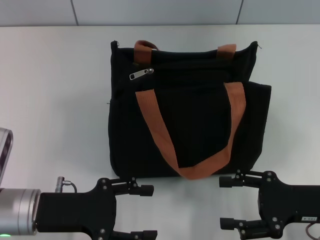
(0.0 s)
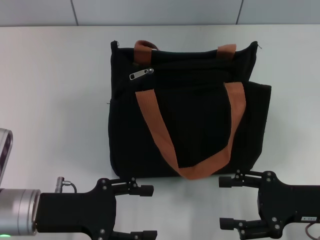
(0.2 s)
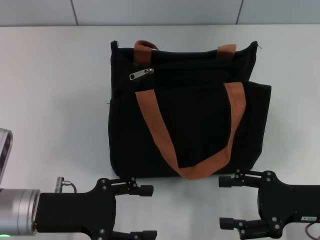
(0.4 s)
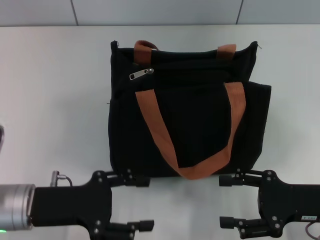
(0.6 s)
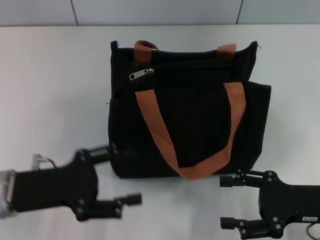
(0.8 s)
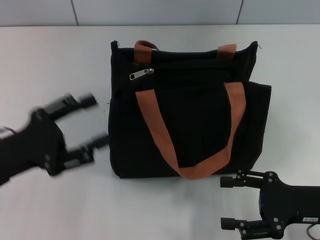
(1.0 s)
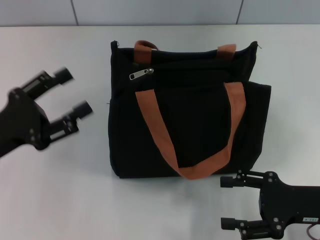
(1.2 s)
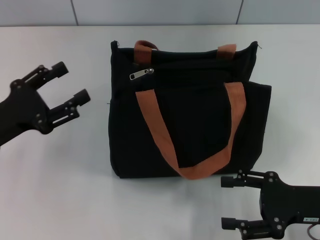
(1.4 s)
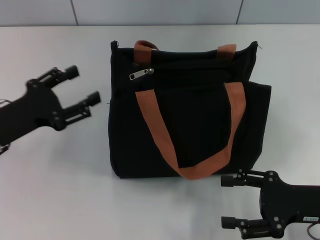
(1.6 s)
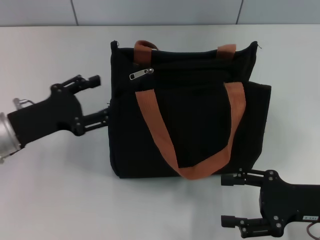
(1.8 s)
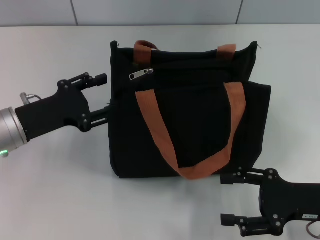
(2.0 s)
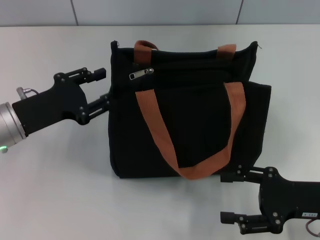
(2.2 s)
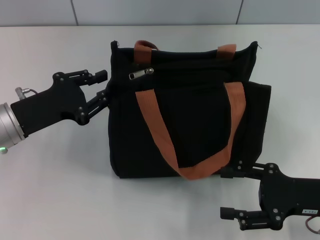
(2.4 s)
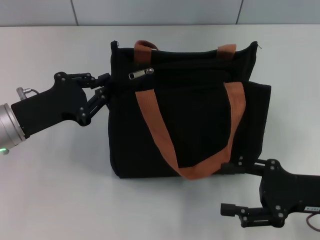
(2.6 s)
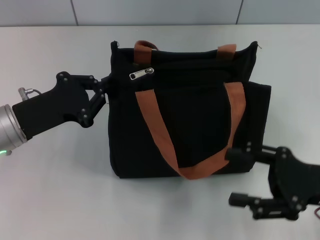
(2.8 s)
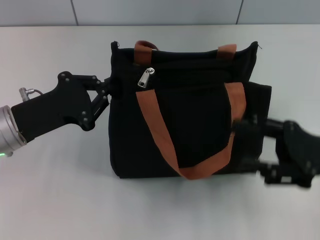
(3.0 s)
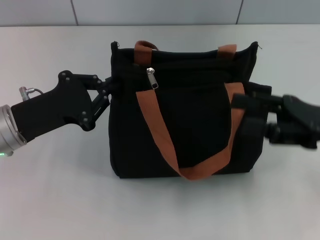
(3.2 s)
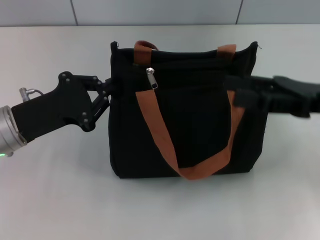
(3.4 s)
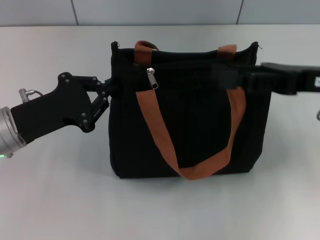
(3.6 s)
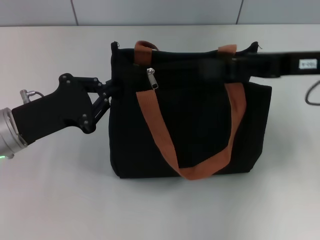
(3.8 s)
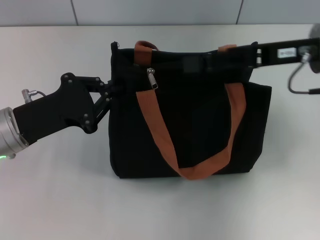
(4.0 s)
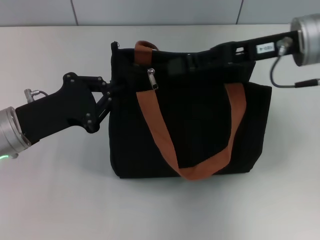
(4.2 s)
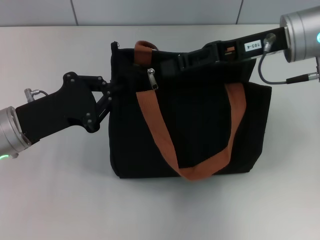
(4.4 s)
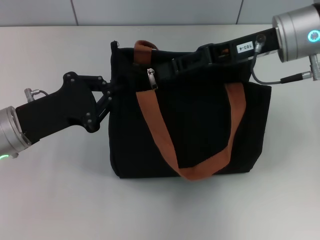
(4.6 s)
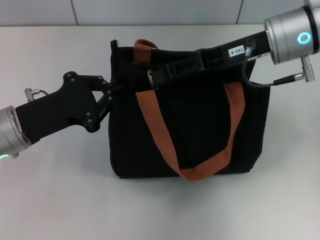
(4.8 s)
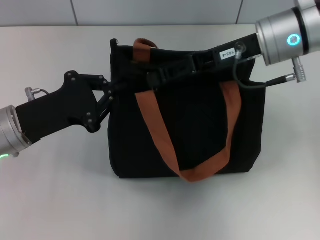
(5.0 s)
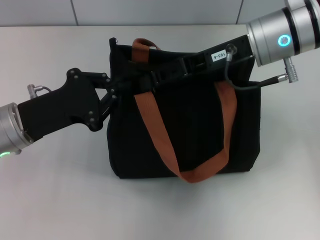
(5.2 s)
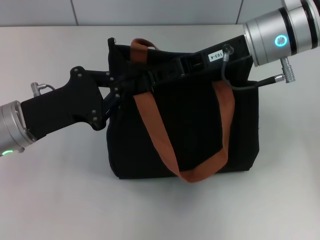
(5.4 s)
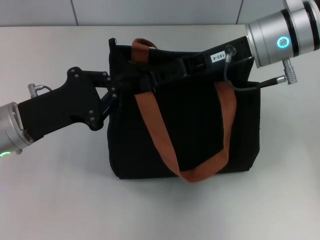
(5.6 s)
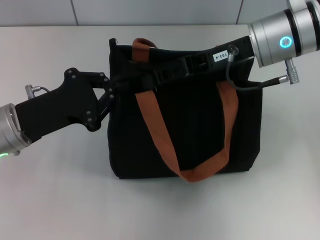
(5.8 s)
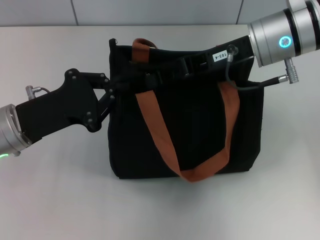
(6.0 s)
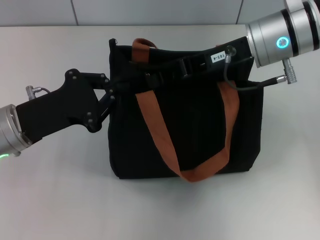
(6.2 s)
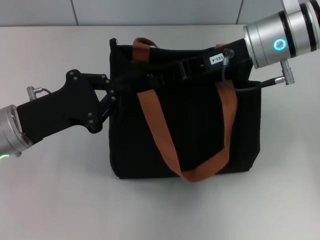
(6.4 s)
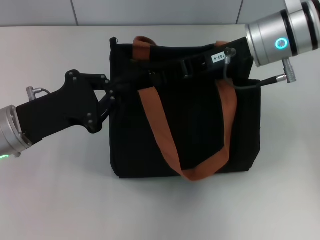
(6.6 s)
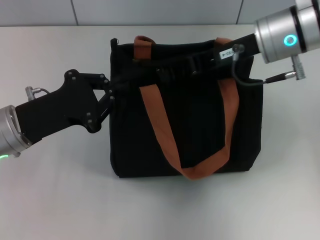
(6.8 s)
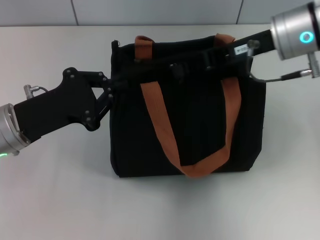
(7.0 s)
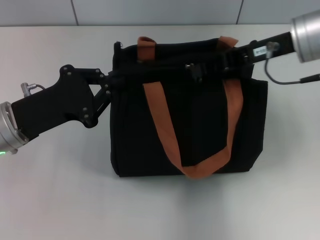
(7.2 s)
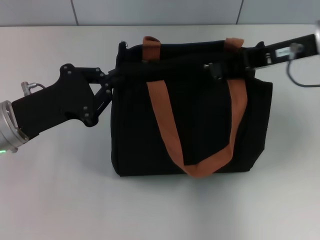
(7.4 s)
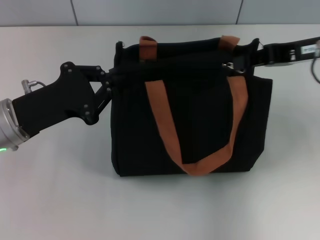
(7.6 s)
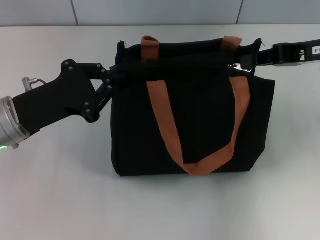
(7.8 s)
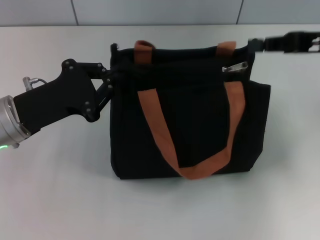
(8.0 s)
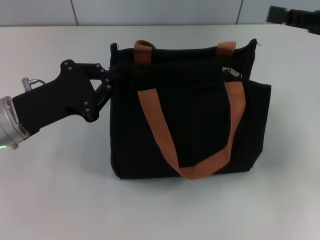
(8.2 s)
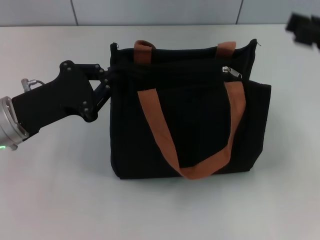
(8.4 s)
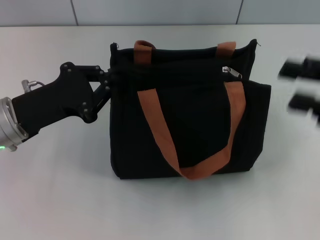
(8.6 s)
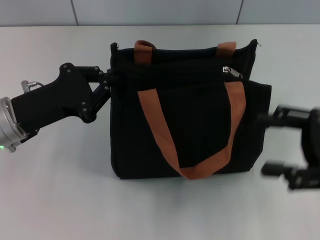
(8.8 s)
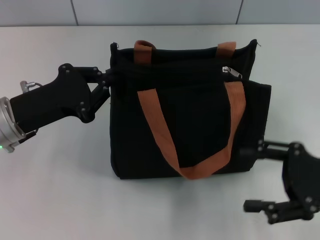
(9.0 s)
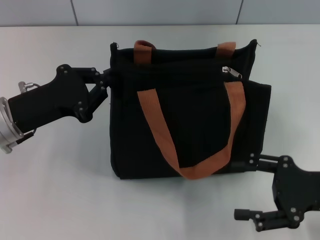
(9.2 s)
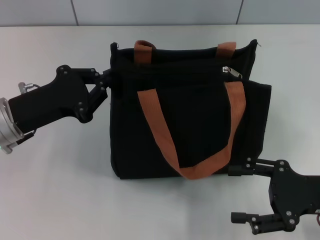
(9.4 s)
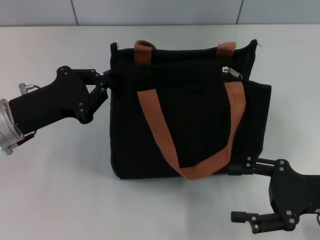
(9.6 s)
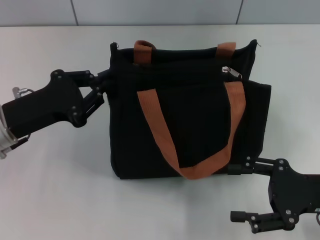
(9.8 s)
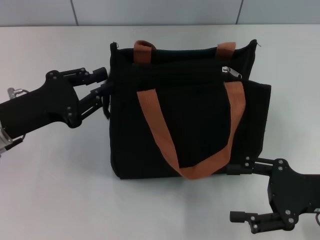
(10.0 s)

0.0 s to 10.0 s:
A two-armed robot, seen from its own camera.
Step, 0.0 to 7.8 s: Pull up the zipper with your right hand.
0.0 to 1.4 s: The left gripper is displaced to the left by some 5 cm.
1.4 to 2.8 s: The left gripper changes place by roughly 5 cm, and closes its fingers.
2.8 to 4.2 s: The right gripper travels forward, upward and to the left by roughly 20 cm.
4.2 to 5.8 s: The right gripper closes up.
5.8 to 7.2 s: The right gripper travels to the right by roughly 5 cm, and closes up.
7.2 to 8.6 s: The right gripper heads backward and to the right, covering roughly 15 cm, and opens.
8.6 to 10.0 s: The right gripper heads downward, covering about 10 cm, and opens up.

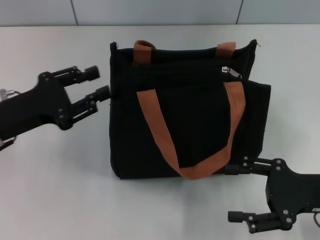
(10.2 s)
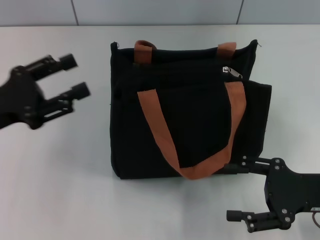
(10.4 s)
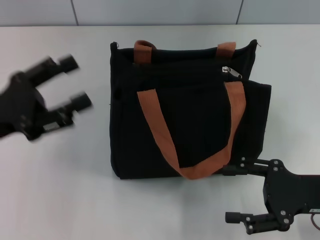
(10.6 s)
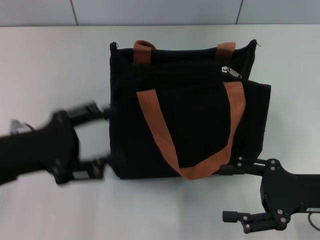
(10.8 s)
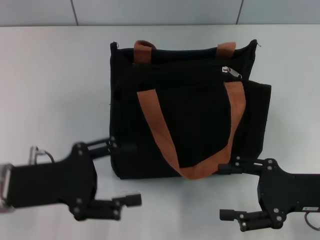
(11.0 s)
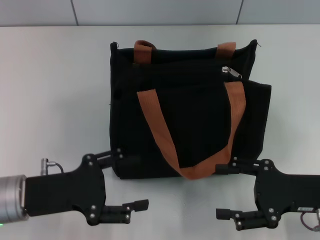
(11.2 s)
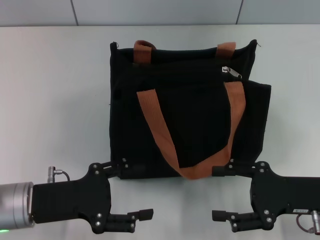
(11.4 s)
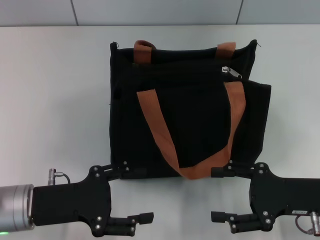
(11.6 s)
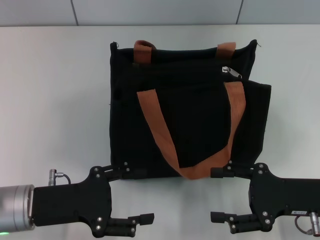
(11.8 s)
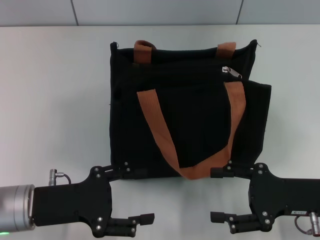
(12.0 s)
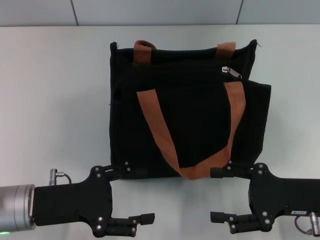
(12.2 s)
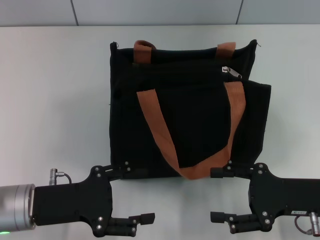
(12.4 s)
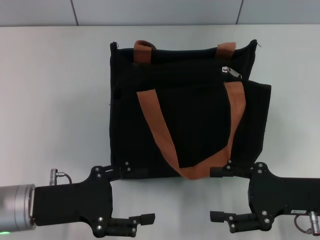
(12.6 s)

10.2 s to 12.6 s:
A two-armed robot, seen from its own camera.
10.2 to 11.4 s: The left gripper heads backward, covering about 5 cm, and opens.
11.4 to 12.6 s: Both grippers stay about where they are.

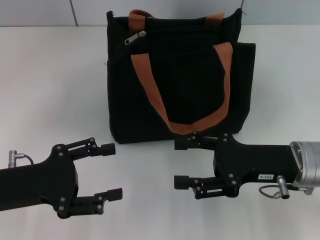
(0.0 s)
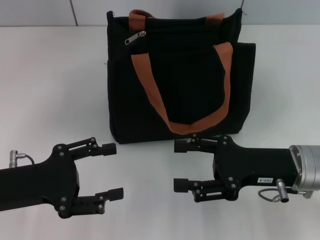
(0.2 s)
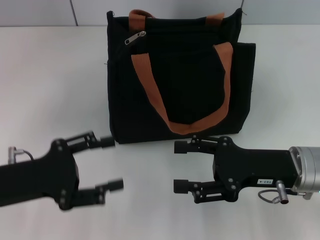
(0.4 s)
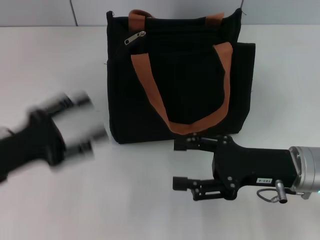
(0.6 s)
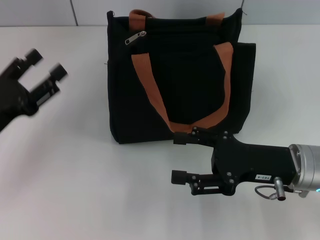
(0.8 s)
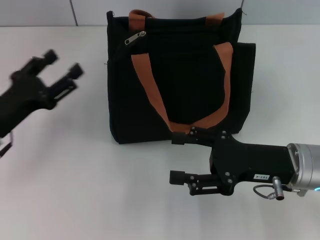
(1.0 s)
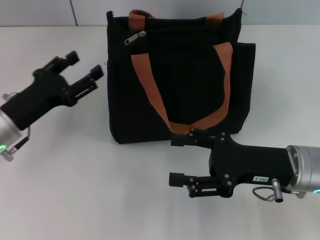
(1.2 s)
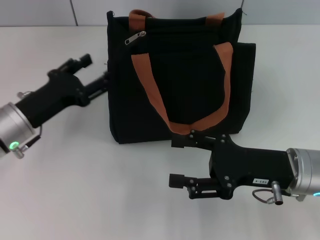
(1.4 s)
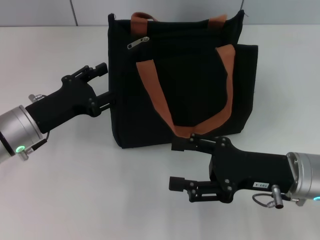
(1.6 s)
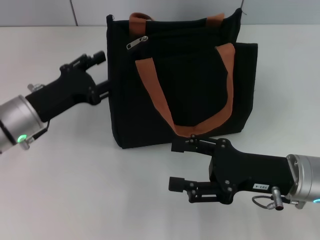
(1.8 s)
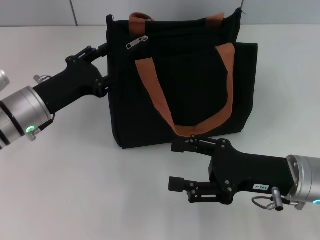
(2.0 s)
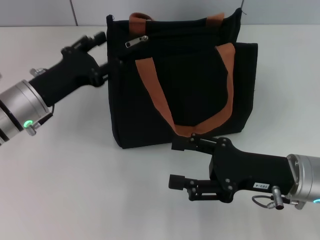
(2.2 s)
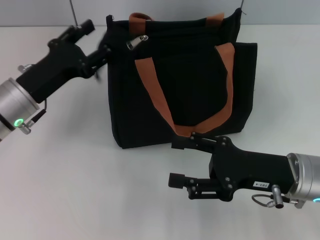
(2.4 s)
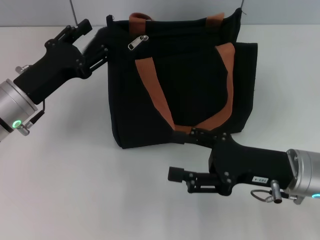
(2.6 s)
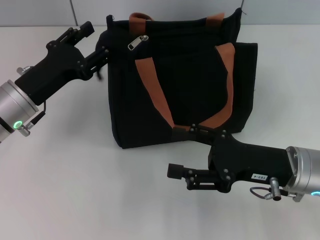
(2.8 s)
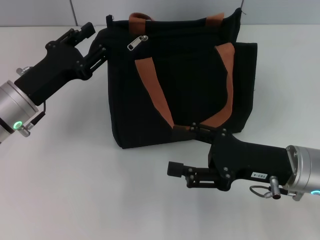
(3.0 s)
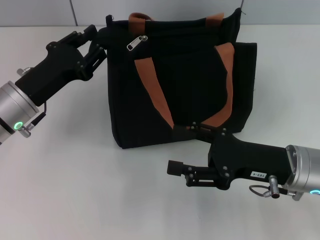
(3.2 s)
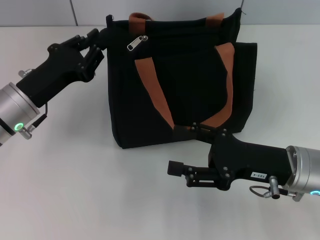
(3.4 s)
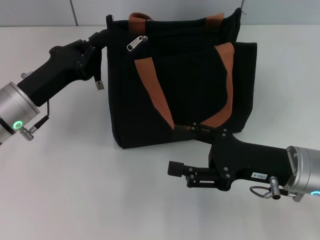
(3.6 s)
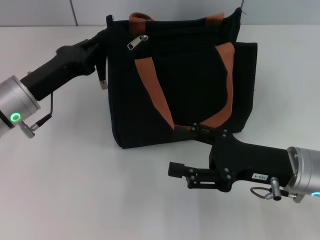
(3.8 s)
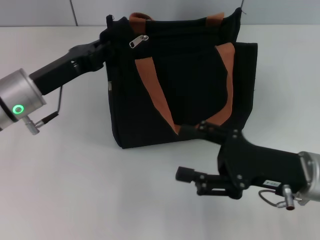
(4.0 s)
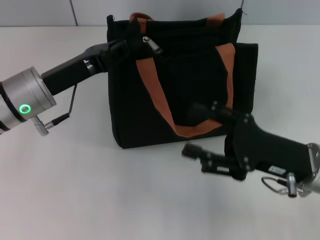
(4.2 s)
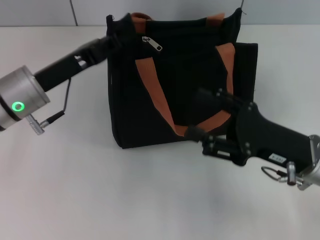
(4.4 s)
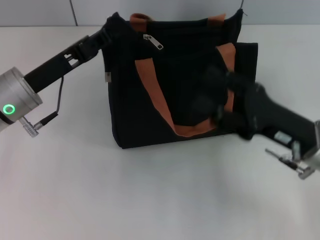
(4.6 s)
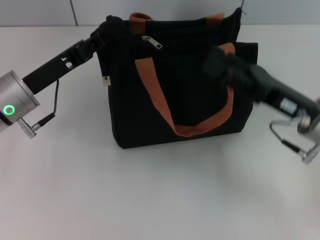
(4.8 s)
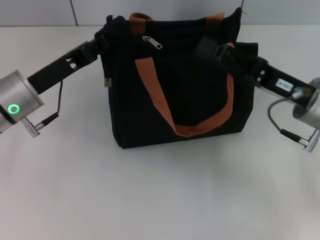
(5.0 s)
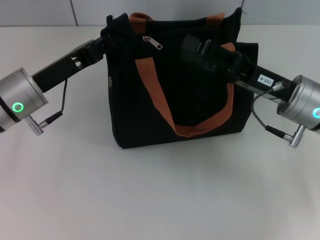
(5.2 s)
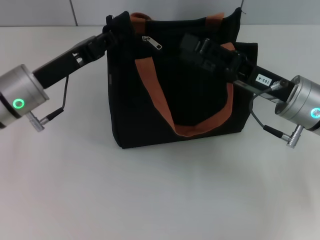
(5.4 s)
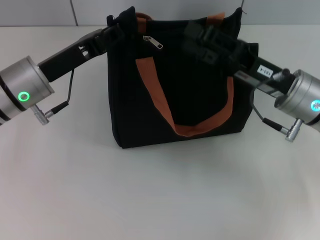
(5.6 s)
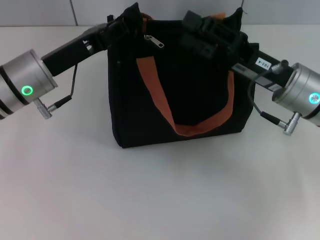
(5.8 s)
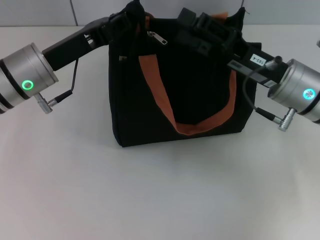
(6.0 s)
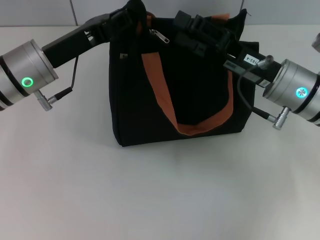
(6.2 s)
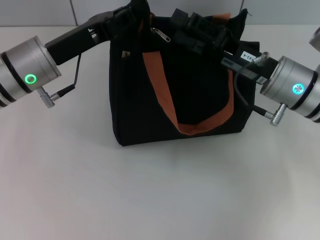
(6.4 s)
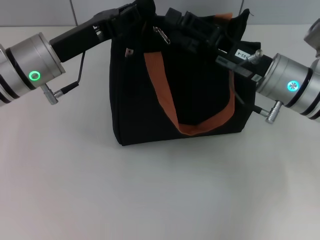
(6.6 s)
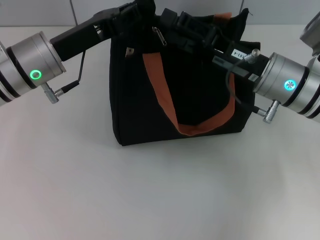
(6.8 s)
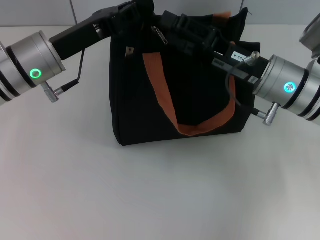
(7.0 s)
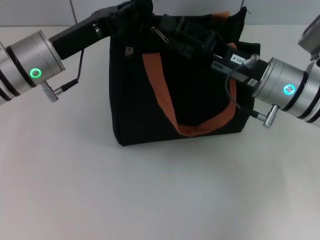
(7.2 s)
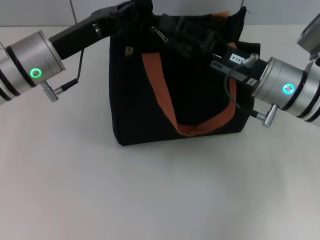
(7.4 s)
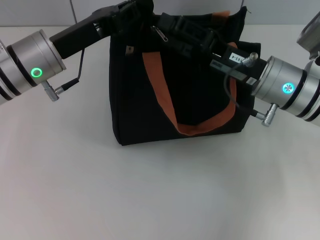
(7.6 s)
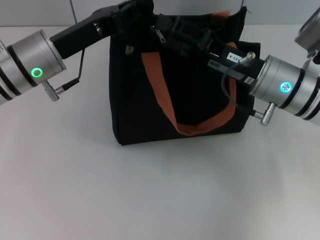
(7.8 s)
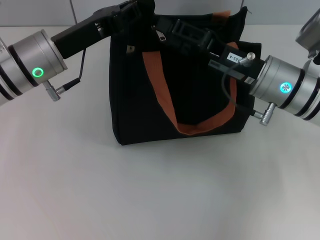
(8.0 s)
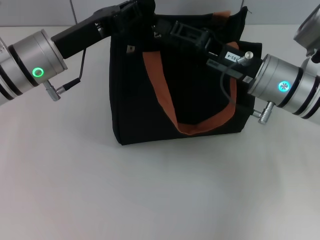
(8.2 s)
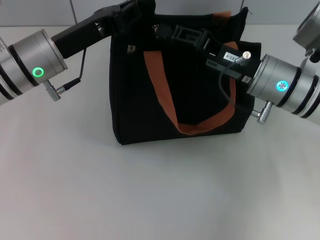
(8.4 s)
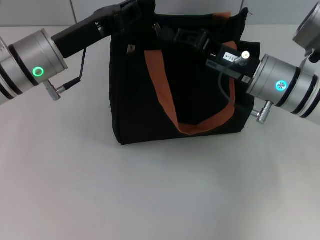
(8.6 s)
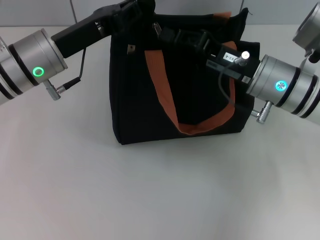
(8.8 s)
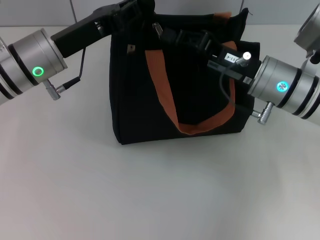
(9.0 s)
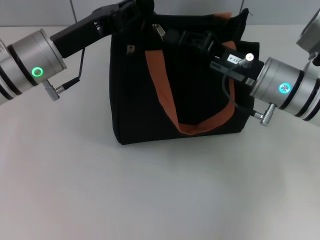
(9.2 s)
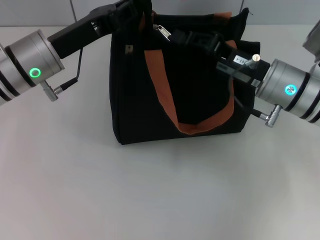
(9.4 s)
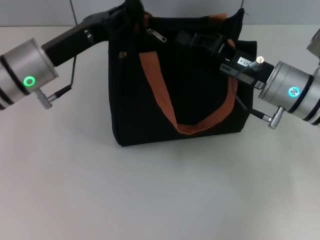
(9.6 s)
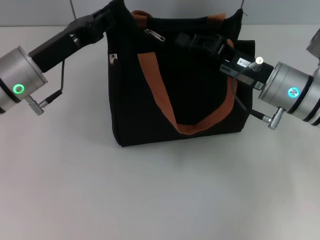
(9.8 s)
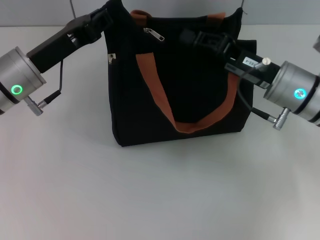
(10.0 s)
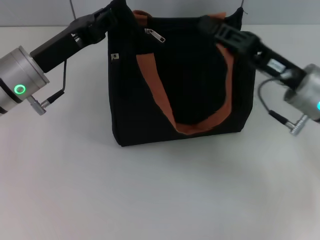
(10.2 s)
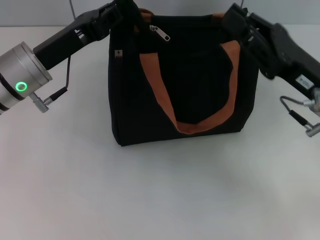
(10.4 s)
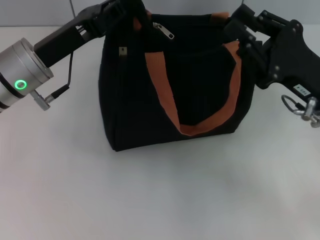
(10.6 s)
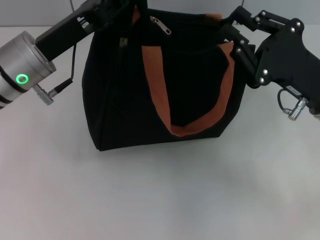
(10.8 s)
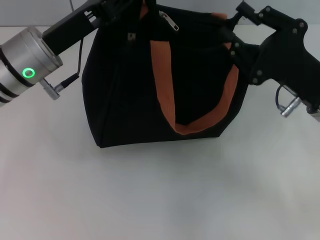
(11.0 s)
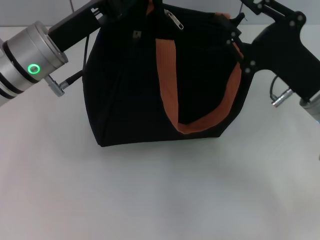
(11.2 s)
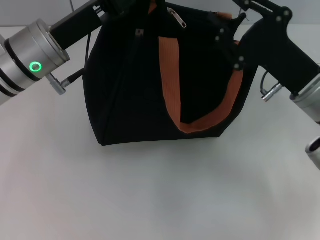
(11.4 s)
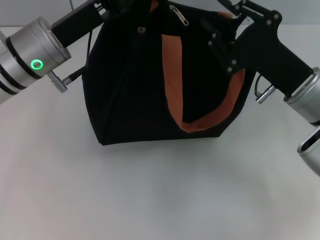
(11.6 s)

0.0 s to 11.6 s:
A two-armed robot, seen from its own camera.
0.0 to 1.4 s: The left gripper travels forward by roughly 10 cm.
1.4 to 2.8 s: The grippers stay close to where they were, moving slightly.
2.8 to 4.4 s: The left gripper closes up.
4.4 to 5.8 s: The right gripper heads forward, covering about 10 cm.
5.8 to 7.2 s: The grippers stay close to where they were, moving slightly.
7.2 to 8.8 s: The right gripper closes up.
8.8 to 10.2 s: The right gripper changes place by roughly 5 cm.
10.2 to 11.6 s: The right gripper opens its fingers.
